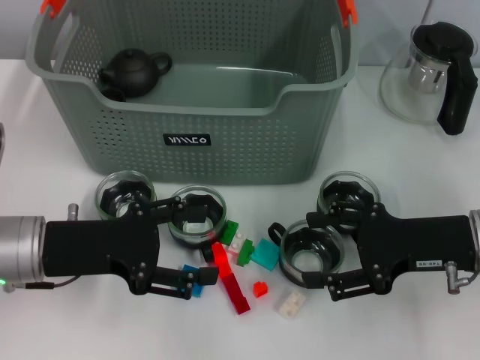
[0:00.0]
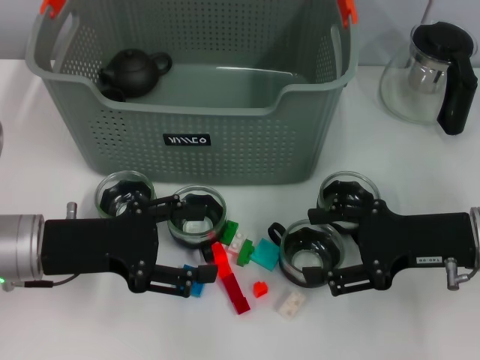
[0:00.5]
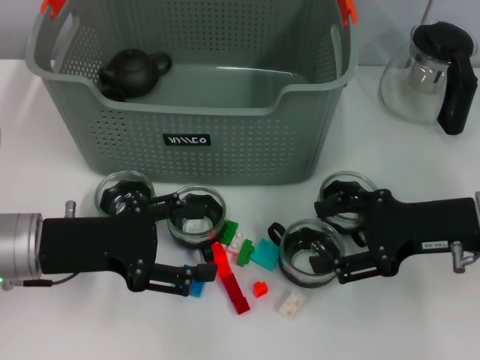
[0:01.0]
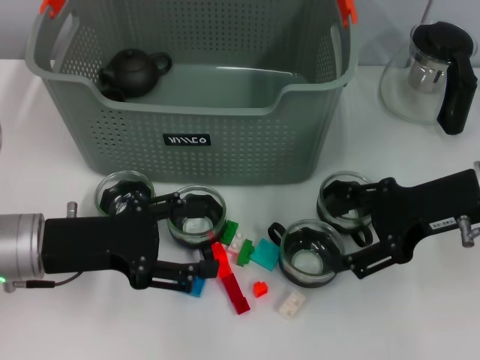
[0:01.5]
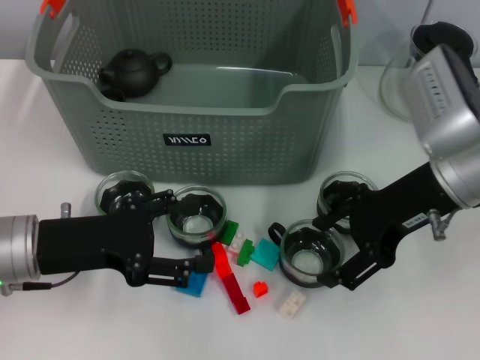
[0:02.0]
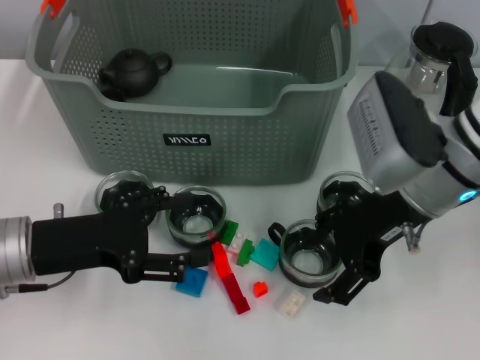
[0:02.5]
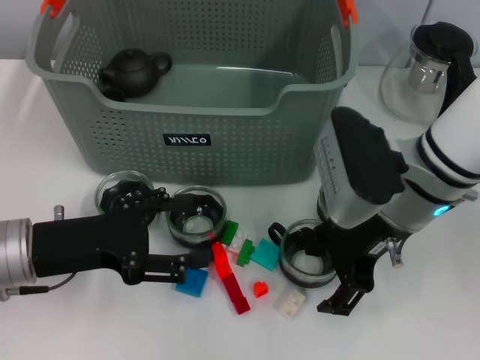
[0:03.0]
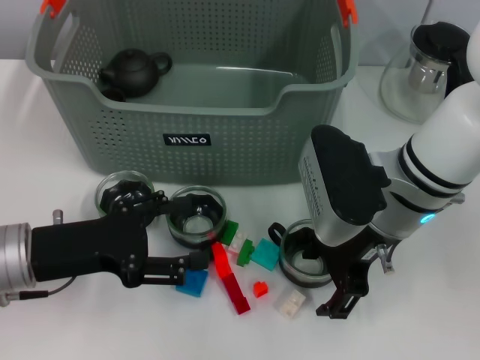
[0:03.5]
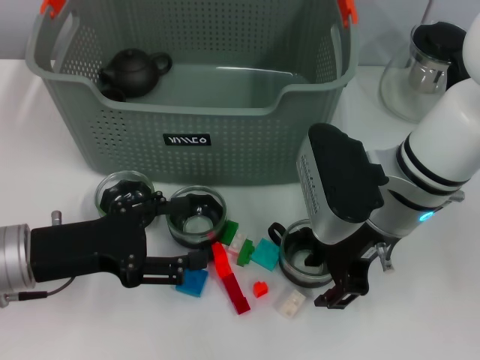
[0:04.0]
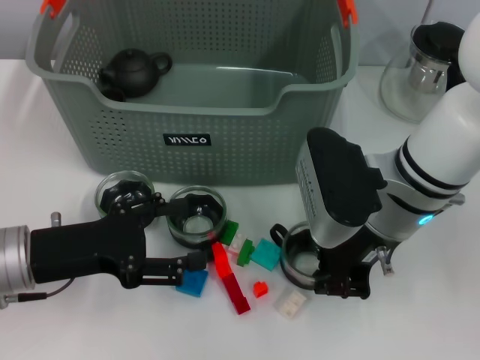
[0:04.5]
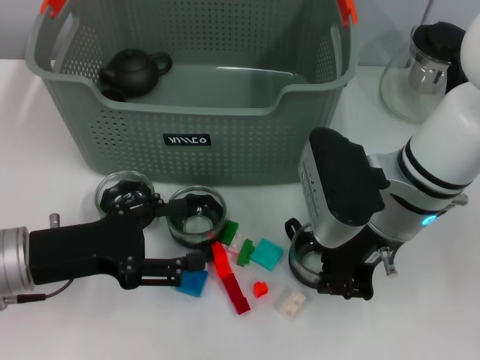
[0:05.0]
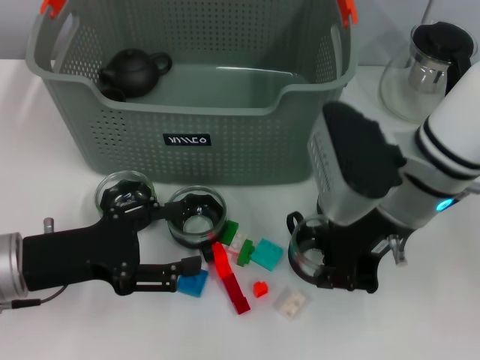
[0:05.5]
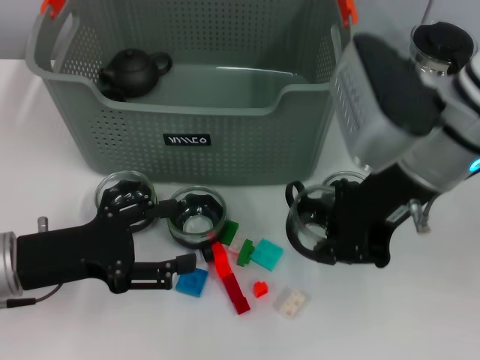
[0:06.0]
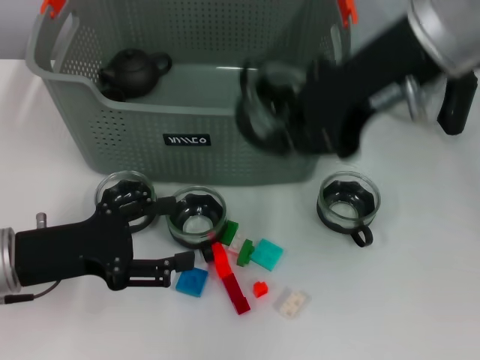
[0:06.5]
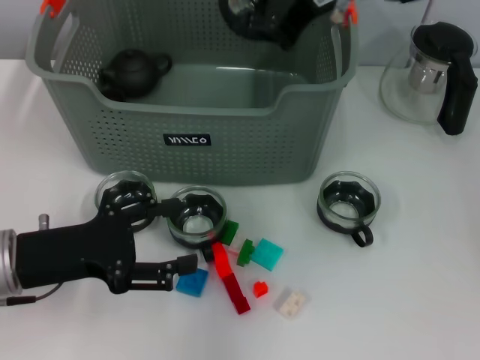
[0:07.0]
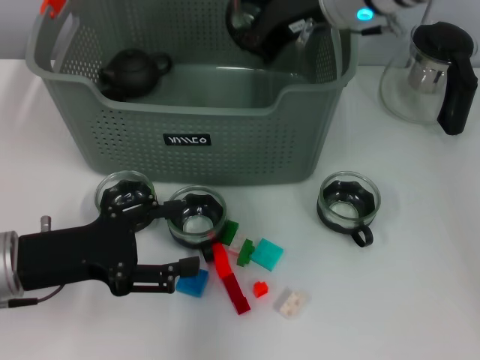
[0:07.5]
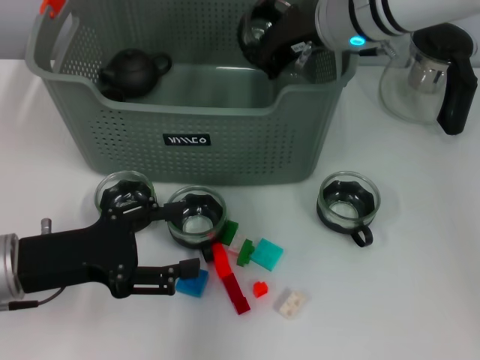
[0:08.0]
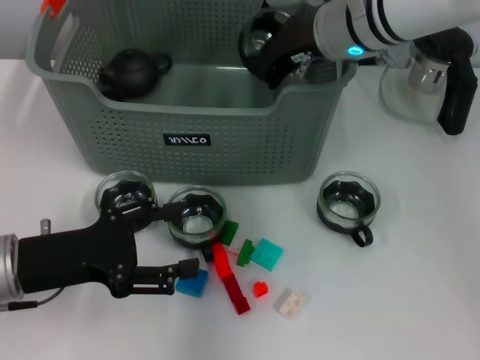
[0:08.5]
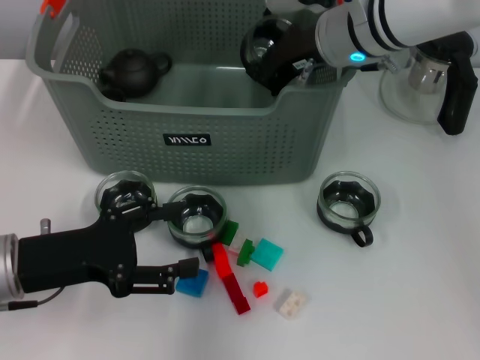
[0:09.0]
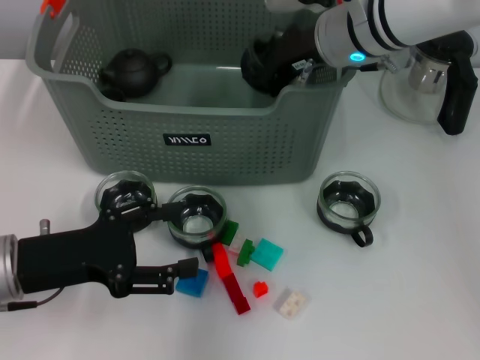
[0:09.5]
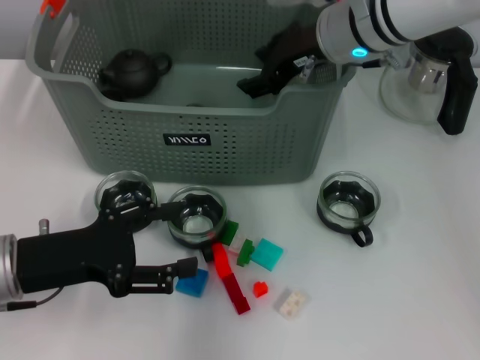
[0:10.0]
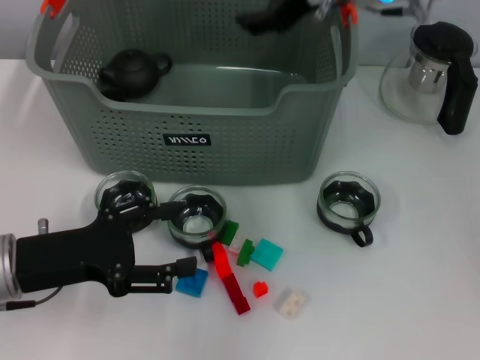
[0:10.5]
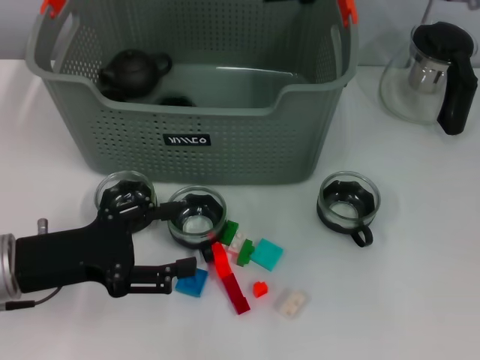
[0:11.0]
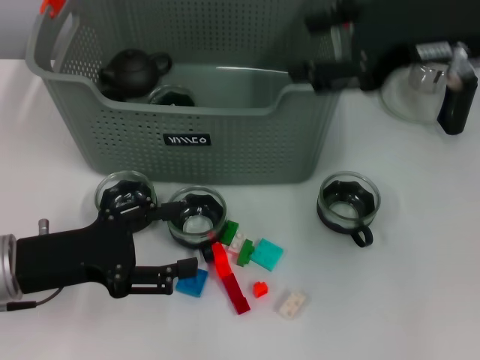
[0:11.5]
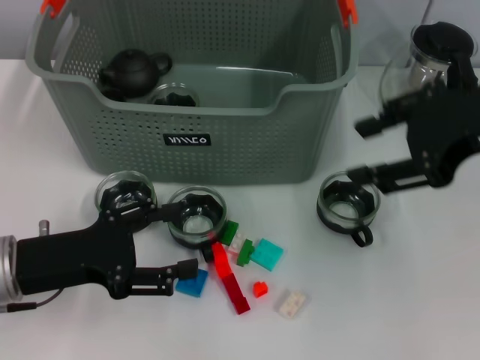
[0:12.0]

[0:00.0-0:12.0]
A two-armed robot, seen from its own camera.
Task of the whole recording: pick up the teacup on the table and place it into the storage bin, pick up the block on the table and place it into the storage bin.
Step, 0.0 to 4.5 s: Grasp the cup with right gripper.
Step, 5.0 to 10.0 s: Place the cup in the storage box with right gripper.
0.0 to 2.0 s: The right gripper goes approximately 10 cm upward, forward and to the left.
2.0 to 4.0 s: The right gripper shifts approximately 5 cm to the left.
4.0 to 6.0 s: The right gripper goes about 10 cm upward, and closes up.
6.0 to 8.0 s: The right gripper travels forward by approximately 15 cm.
8.0 to 10.0 s: The right gripper opens up.
10.0 to 12.0 s: The right gripper heads backward, to the right and upward, covering roughly 20 cm.

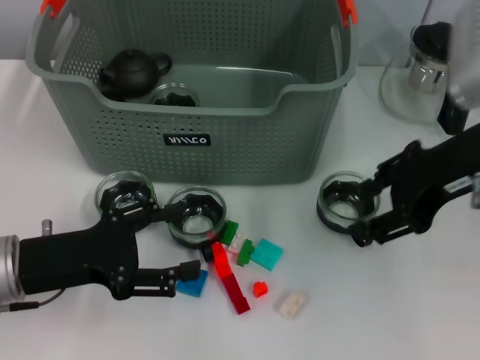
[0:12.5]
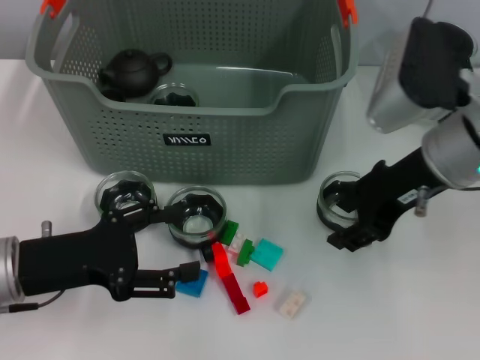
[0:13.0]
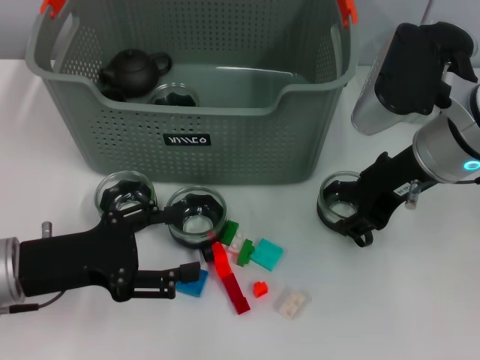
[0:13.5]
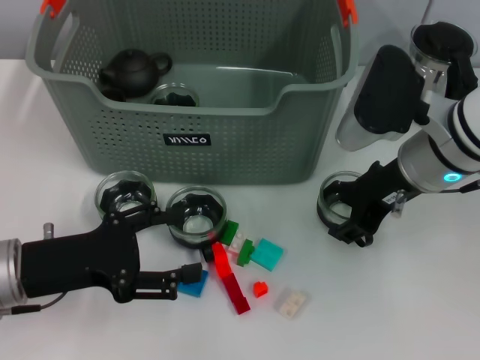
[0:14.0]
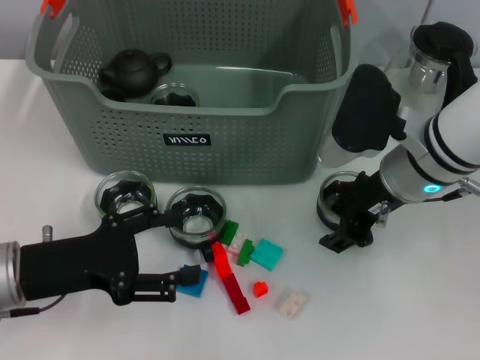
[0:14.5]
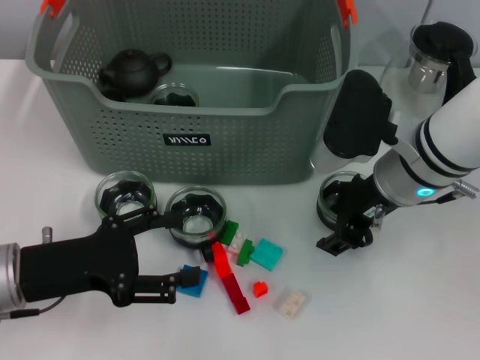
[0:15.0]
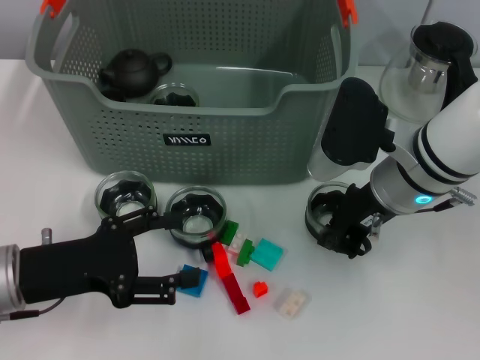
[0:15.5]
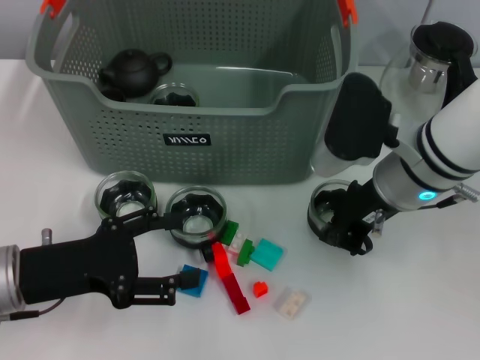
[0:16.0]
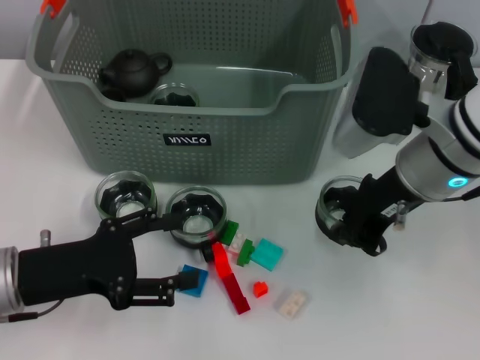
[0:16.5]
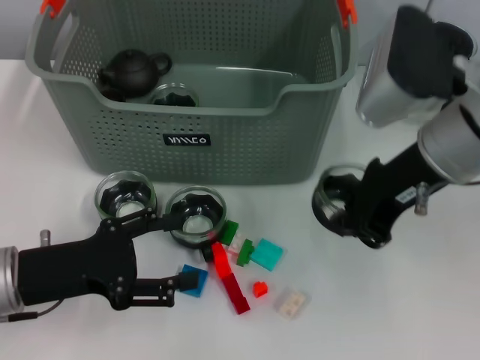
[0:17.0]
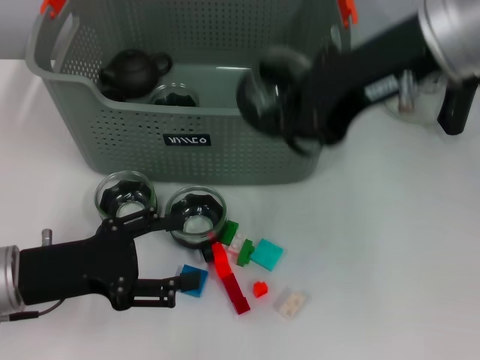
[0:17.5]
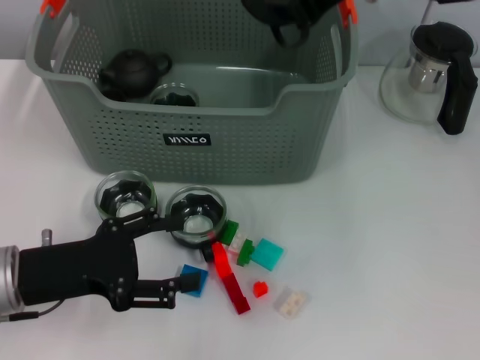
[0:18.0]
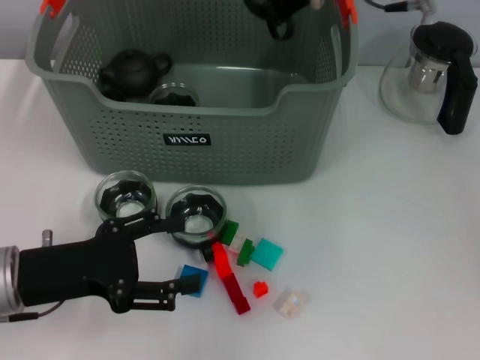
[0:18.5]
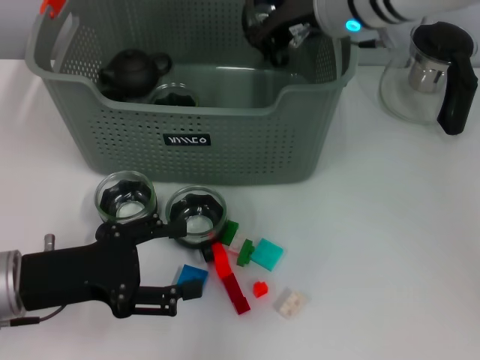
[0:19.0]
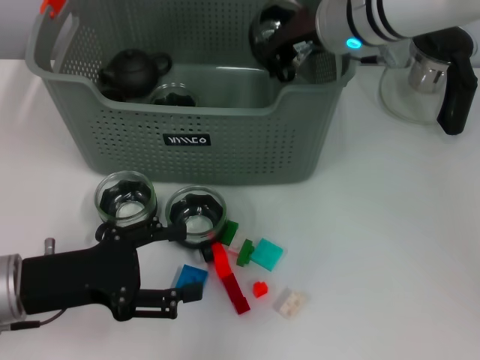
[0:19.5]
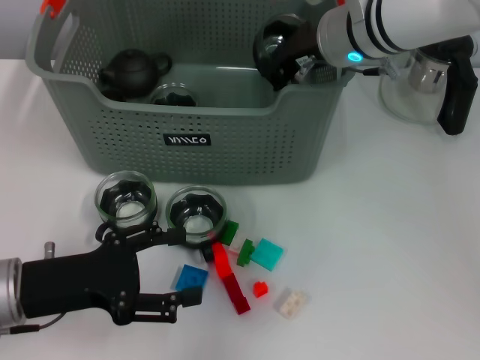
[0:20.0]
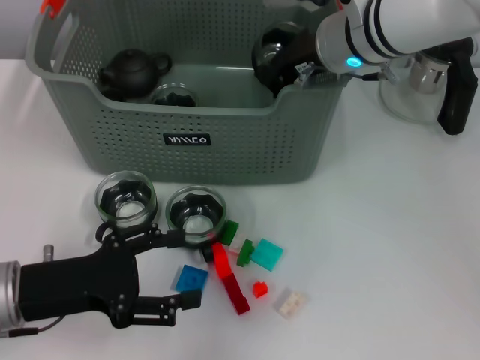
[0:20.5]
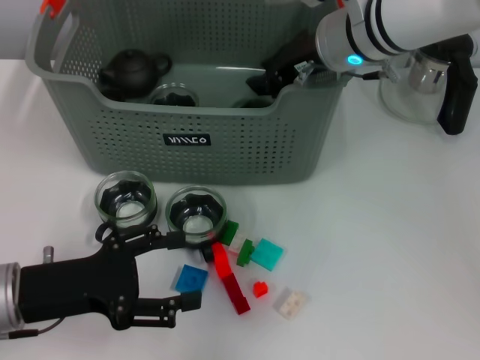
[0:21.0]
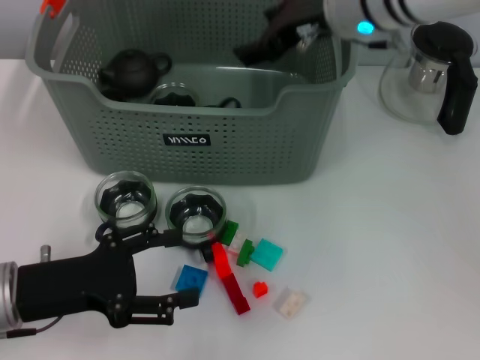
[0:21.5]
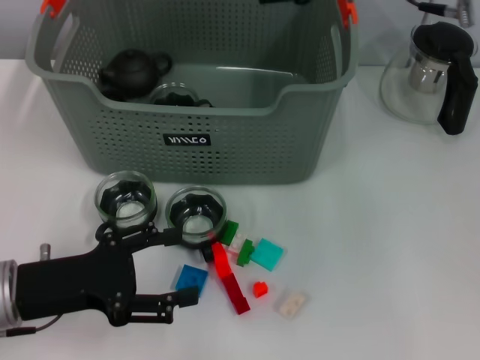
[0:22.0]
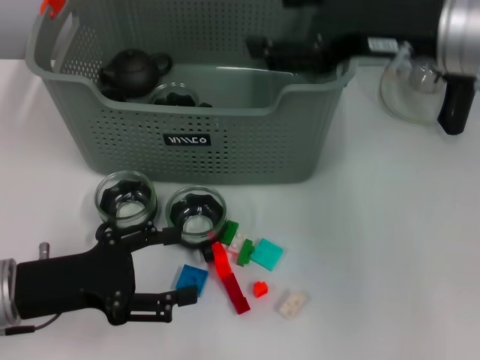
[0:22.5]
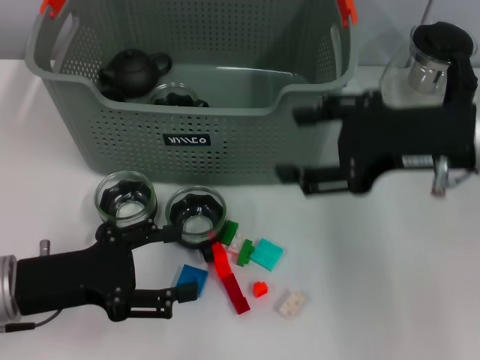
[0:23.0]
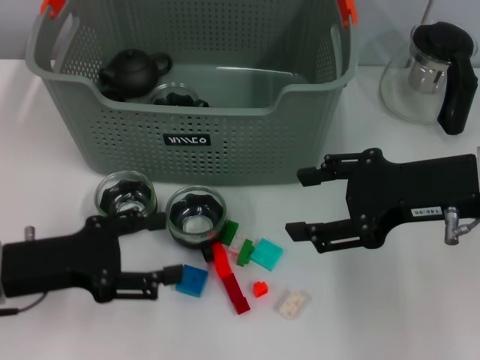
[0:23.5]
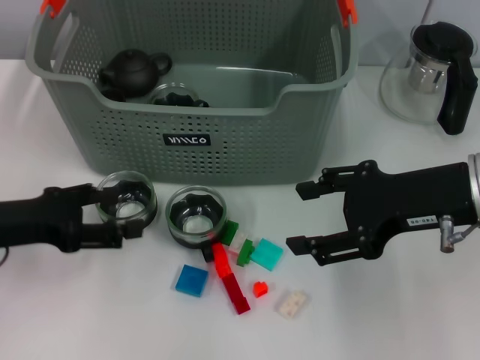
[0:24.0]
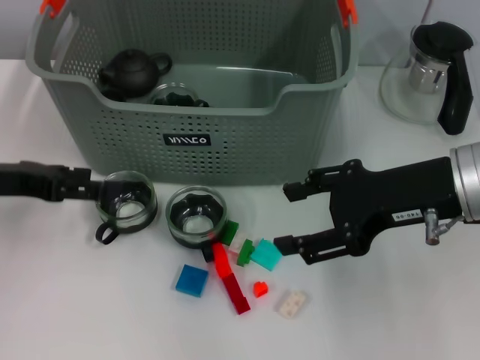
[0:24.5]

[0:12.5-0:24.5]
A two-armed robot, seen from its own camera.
Task of the whole recording: pick up the teacup on the table and place it into the storage bin, pick up the block on the table and place it into the storage bin.
Step, 12.5 to 15.5 s: Grasp the cup with right gripper.
Step, 16.0 to 21.0 s: Place the cup in the storage box with right gripper.
12.5 to 14.5 s: The right gripper is displaced downward and to the left by roughly 10 cm.
14.5 to 16.5 s: The right gripper closes its fingers.
16.5 to 18.5 s: The right gripper moves upward and forward, some 15 cm.
18.5 to 20.5 s: The right gripper travels downward by approximately 10 cm.
20.5 to 22.5 s: The right gripper shifts roughly 15 cm backward, to the right and upward, and opens.
22.5 to 24.5 s: The right gripper shifts about 5 cm downward, while the left gripper moves forward, upward and to the left, roughly 10 cm.

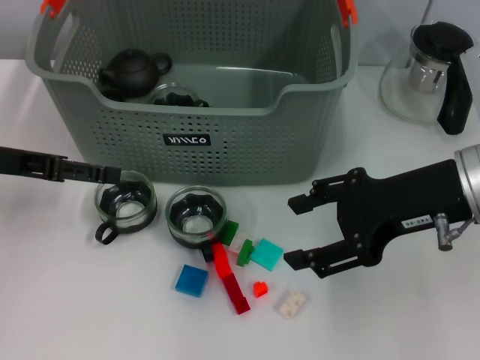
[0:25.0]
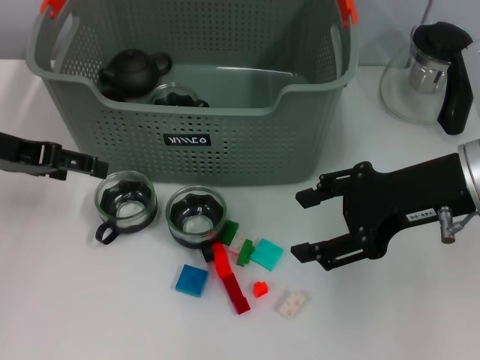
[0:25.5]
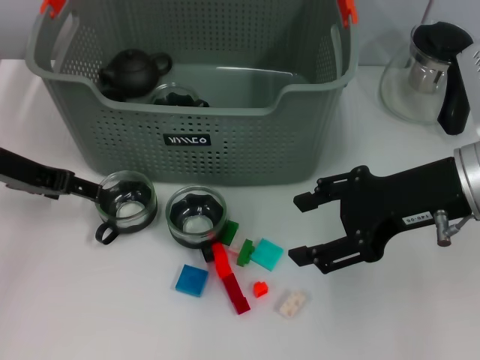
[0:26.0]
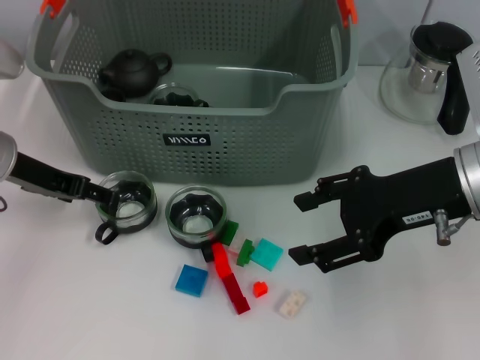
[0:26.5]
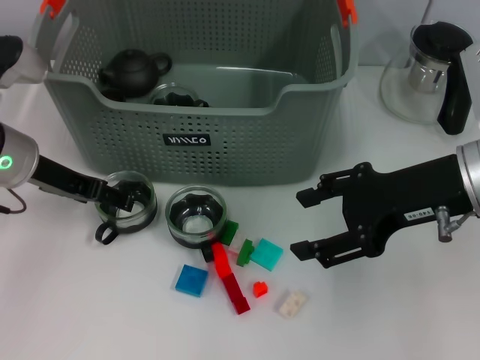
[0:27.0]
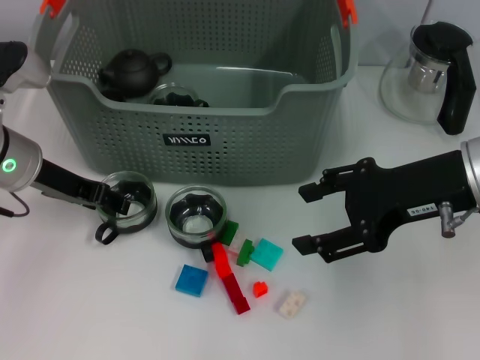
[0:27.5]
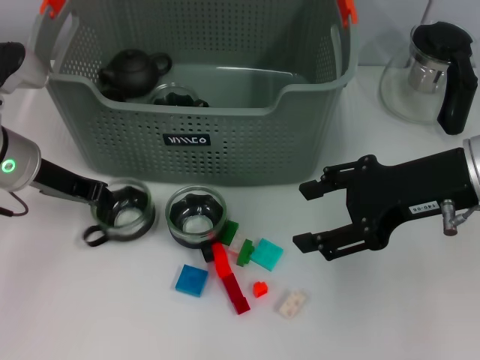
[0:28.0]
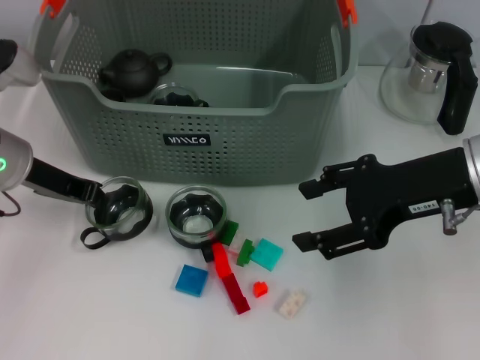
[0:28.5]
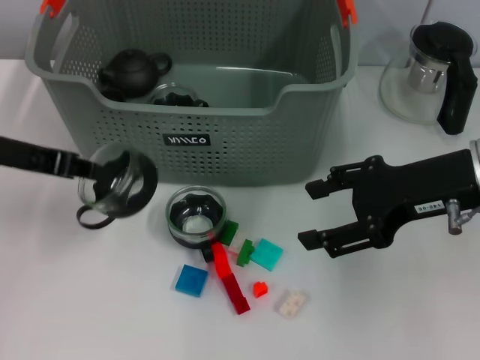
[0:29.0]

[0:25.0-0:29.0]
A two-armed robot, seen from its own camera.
Task of the whole recording: pick up the teacup on the table and place it into the storage bin, pick up the block on the table and place it into the storage bin.
Step, 25.0 to 28.0 s: Grasp the cup with left gripper.
25.0 to 27.0 s: The left gripper goes approximately 5 cm to the right.
27.0 to 29.0 s: The left gripper goes some 5 cm upward, and closes.
